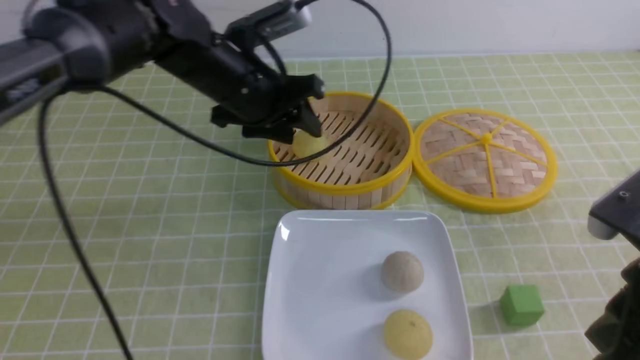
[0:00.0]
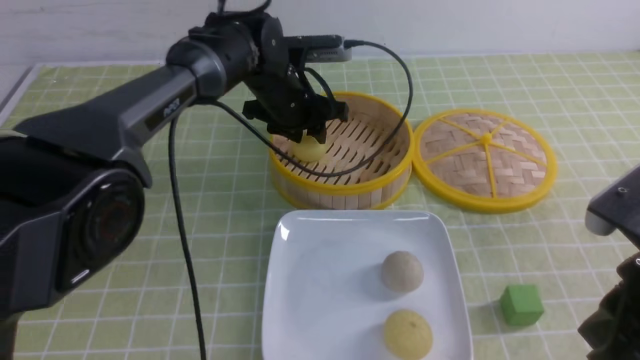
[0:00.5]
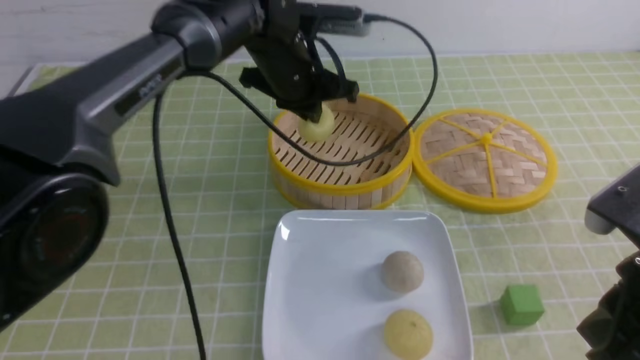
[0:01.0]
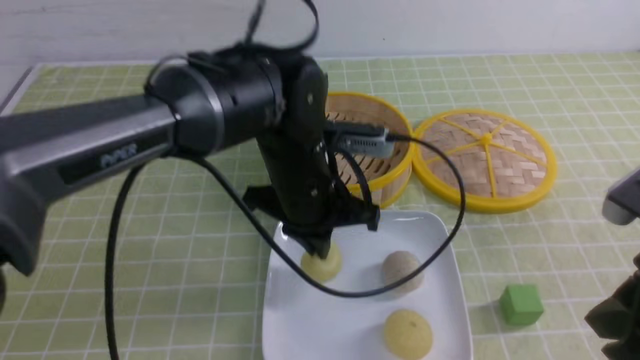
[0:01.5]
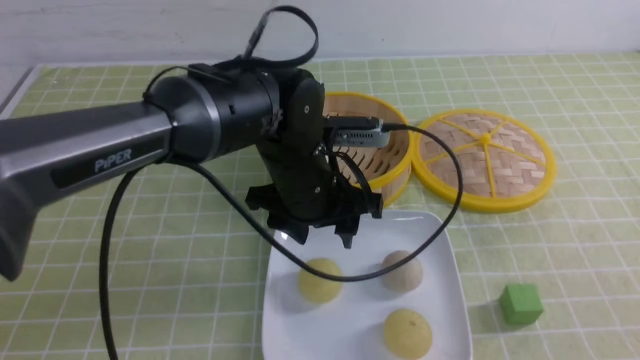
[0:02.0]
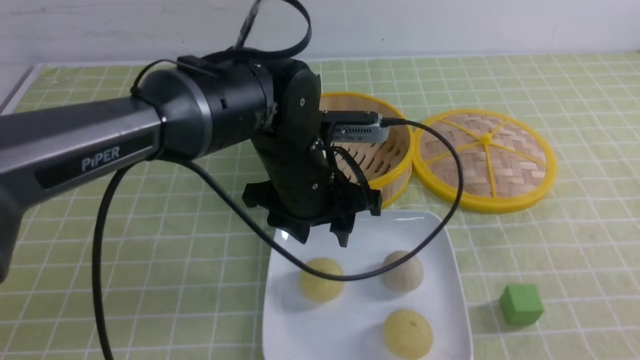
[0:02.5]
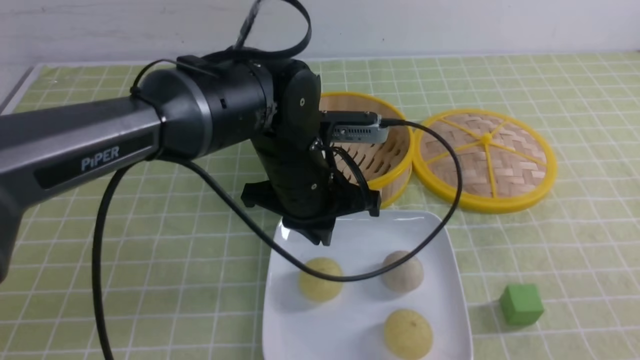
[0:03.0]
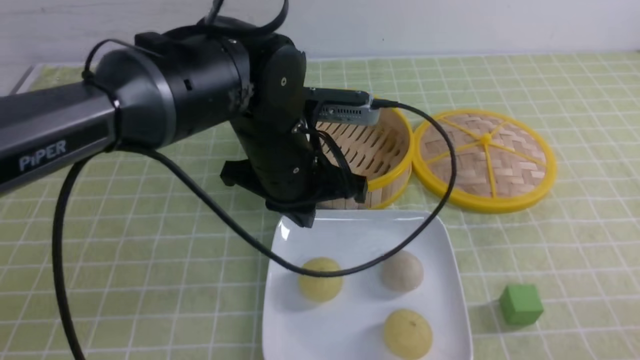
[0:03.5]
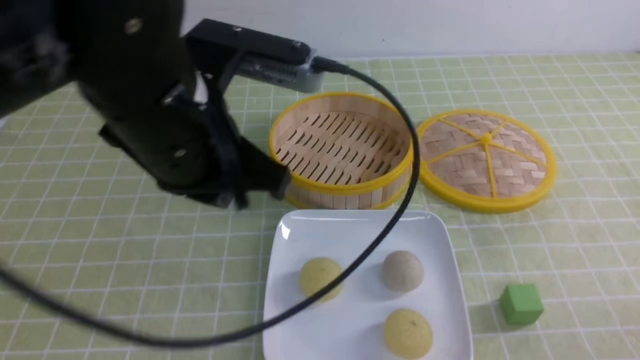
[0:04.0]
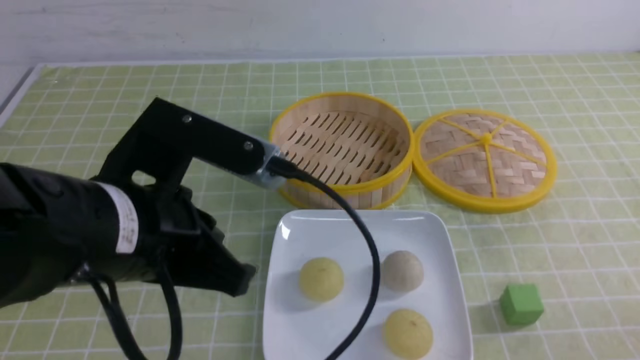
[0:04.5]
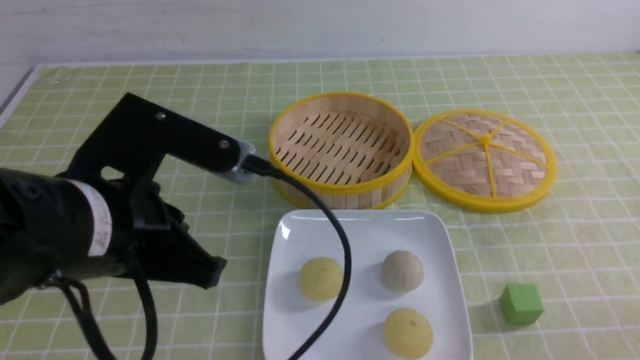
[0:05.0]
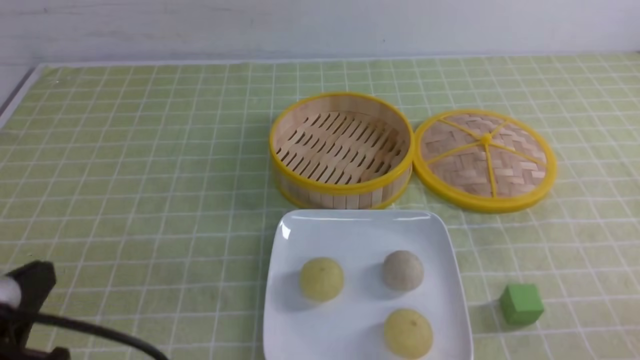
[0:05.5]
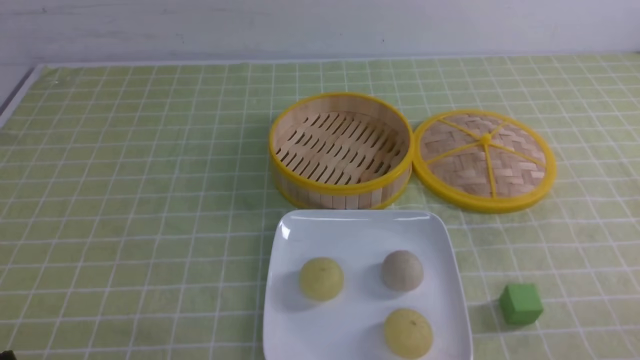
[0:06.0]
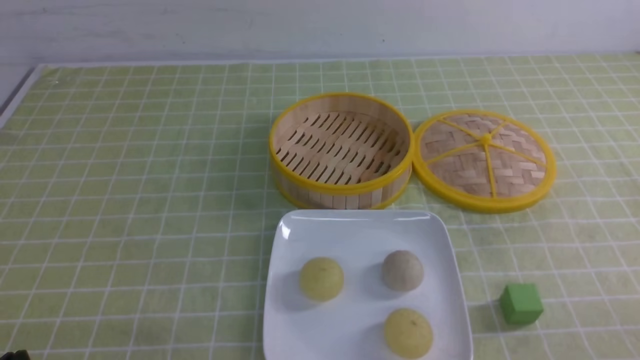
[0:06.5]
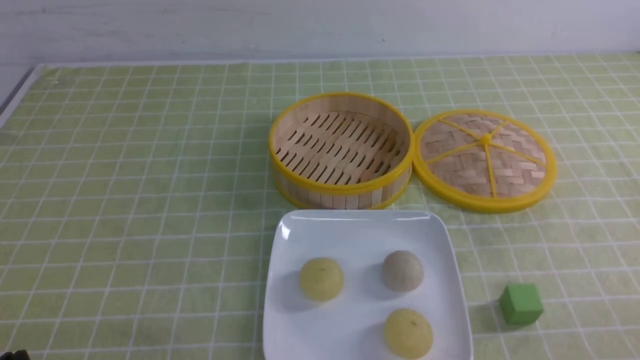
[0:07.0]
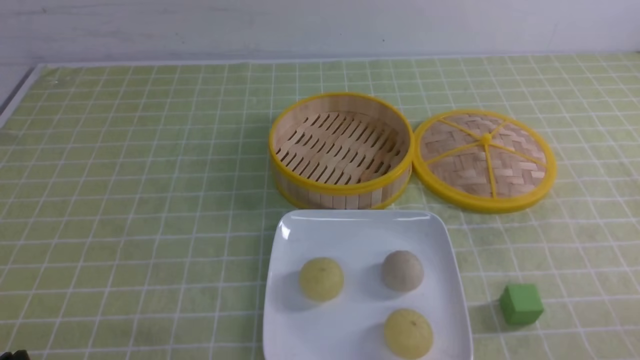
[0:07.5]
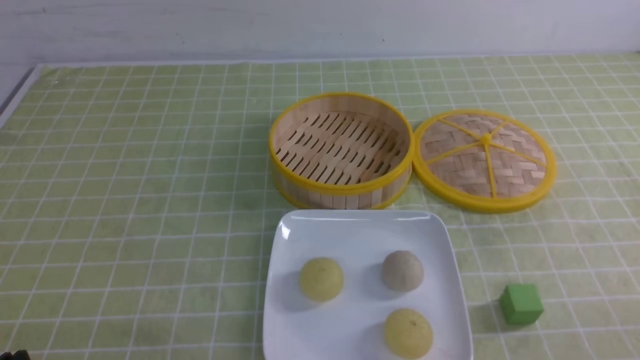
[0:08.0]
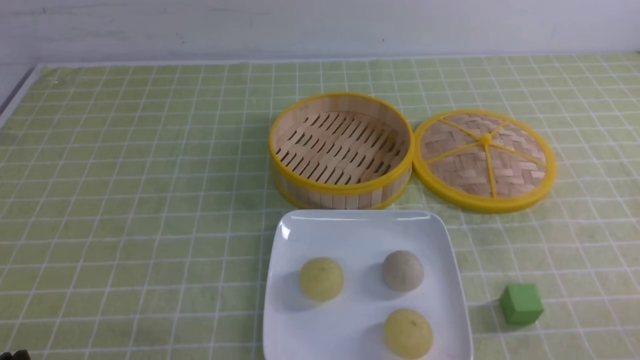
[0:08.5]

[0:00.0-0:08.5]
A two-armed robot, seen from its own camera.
Step, 0:01.0 to 0:01.5: use the left arm to put the steamed stuffed bun into the plate.
0:00.0 to 0:02.0: Both grippers travel together backward and to the right, roughly 15 cm. The left gripper closes, then opens again.
0:02.0 to 0:04.0: The right gripper shifts approximately 15 cm downward, while the left gripper travels upward, backward and to the left by roughly 15 cm, and closes its fingers.
0:04.0 to 0:06.5: The left gripper travels downward, to the left and backward by roughly 30 cm.
0:06.5 to 0:08.5: Neither gripper changes place.

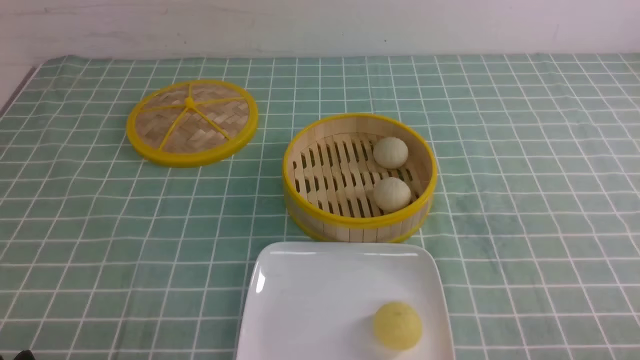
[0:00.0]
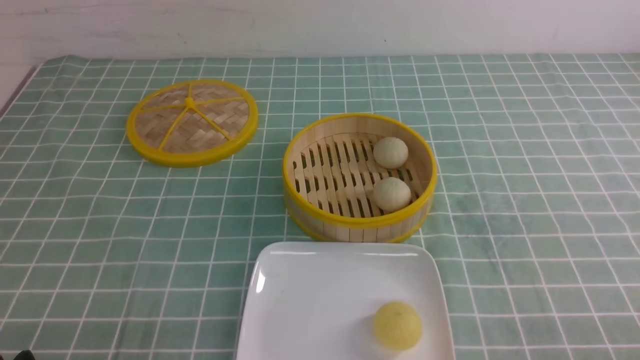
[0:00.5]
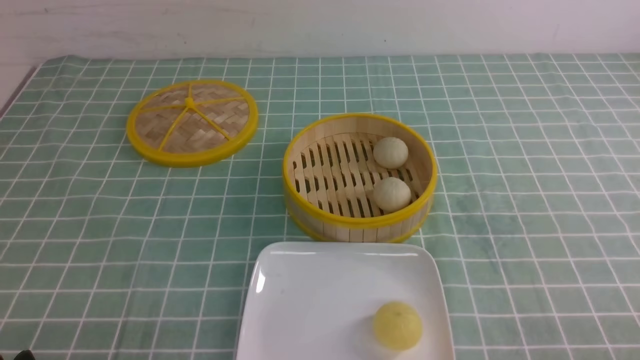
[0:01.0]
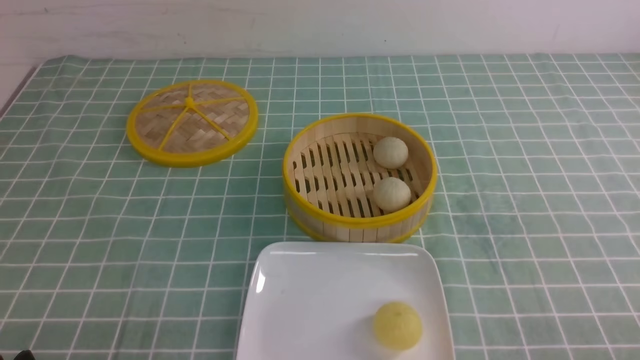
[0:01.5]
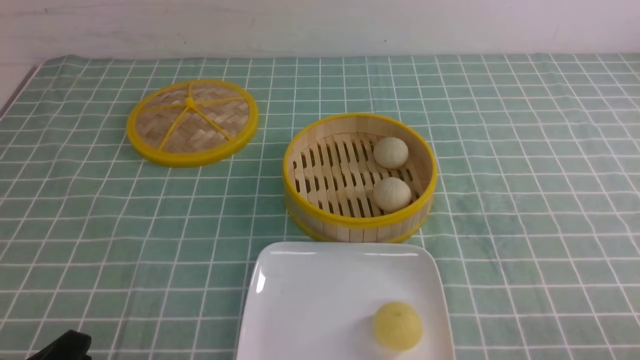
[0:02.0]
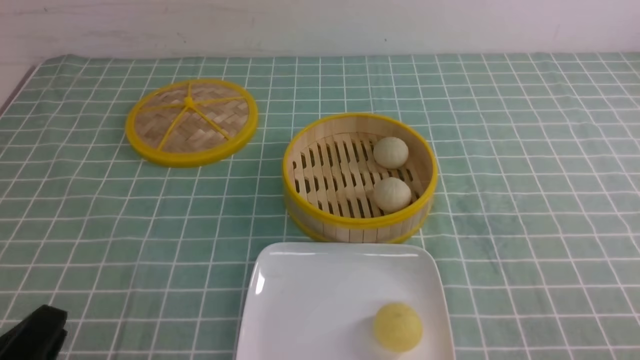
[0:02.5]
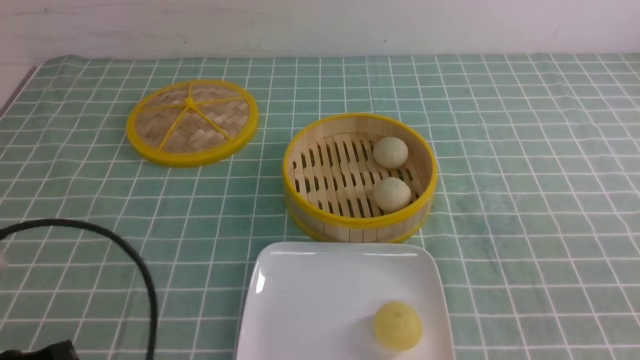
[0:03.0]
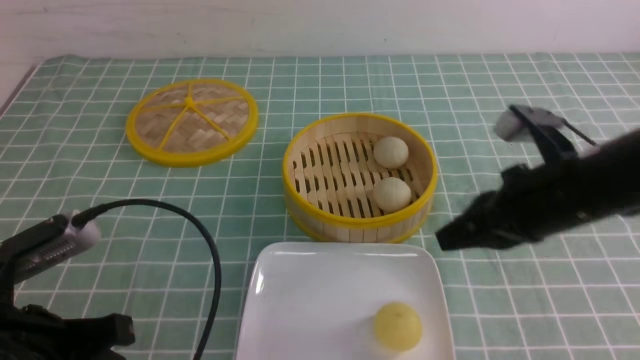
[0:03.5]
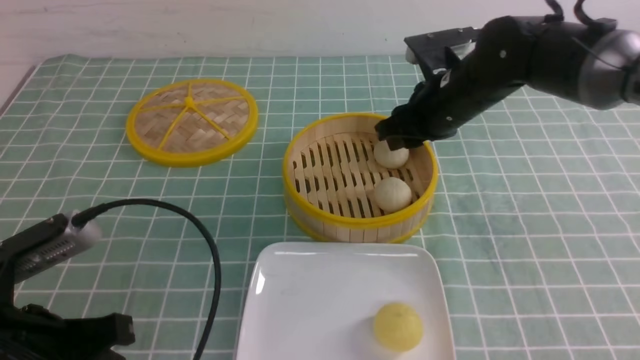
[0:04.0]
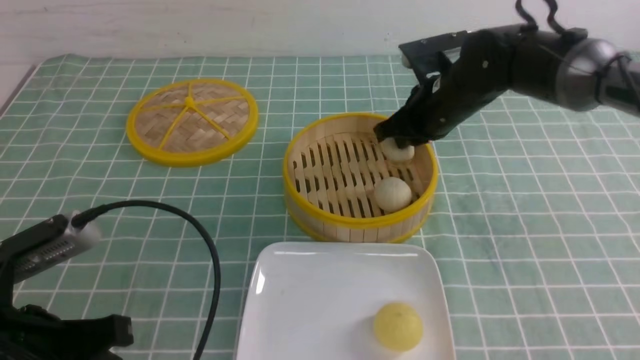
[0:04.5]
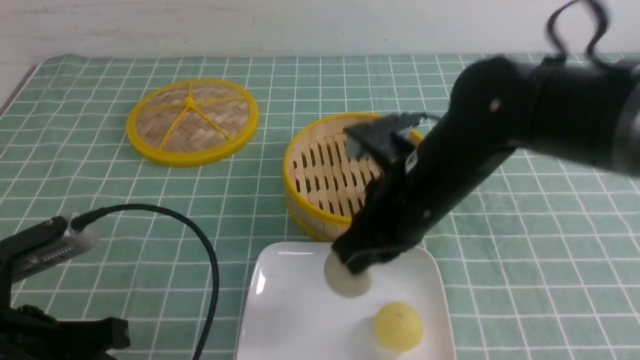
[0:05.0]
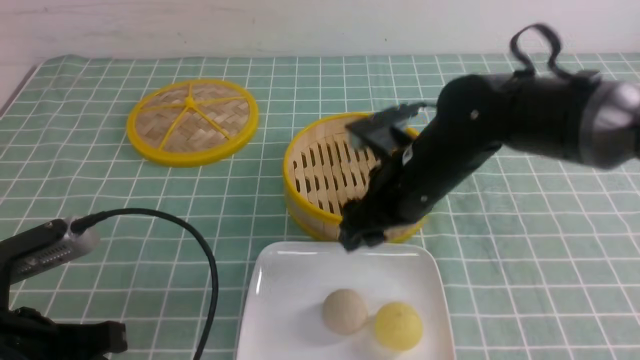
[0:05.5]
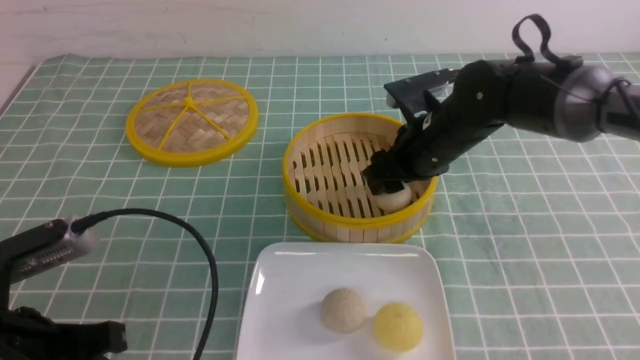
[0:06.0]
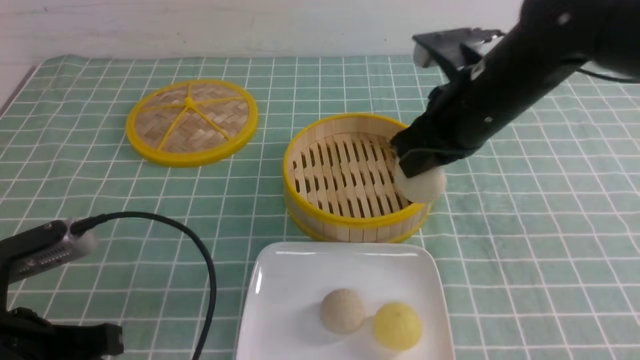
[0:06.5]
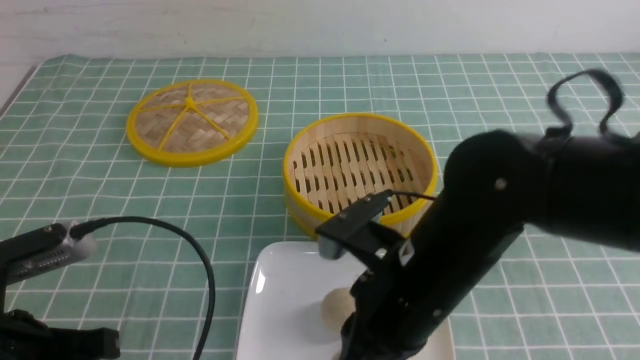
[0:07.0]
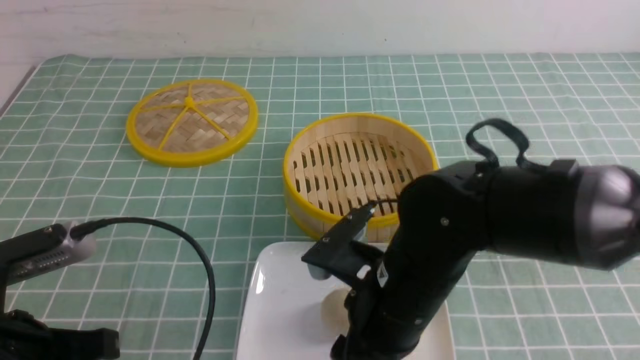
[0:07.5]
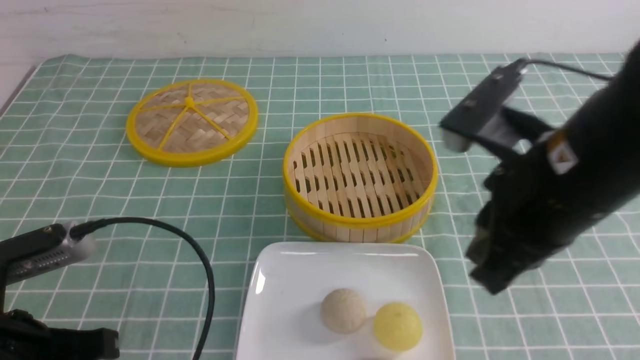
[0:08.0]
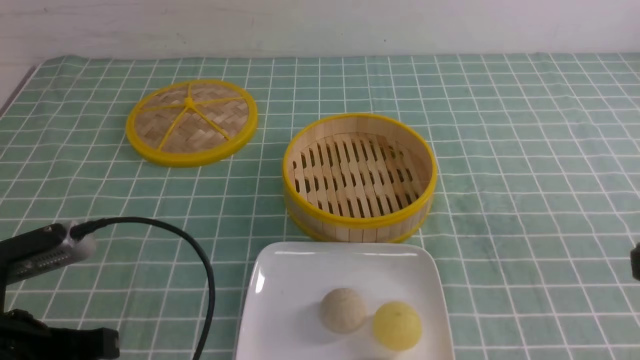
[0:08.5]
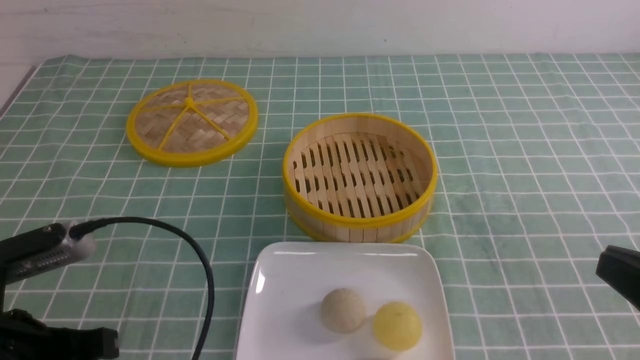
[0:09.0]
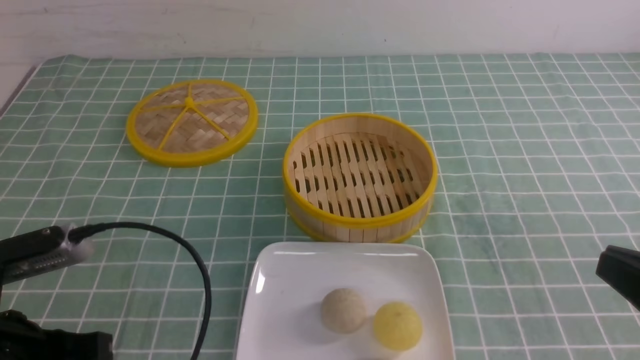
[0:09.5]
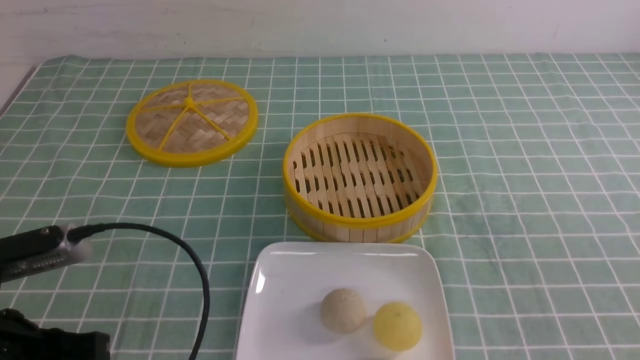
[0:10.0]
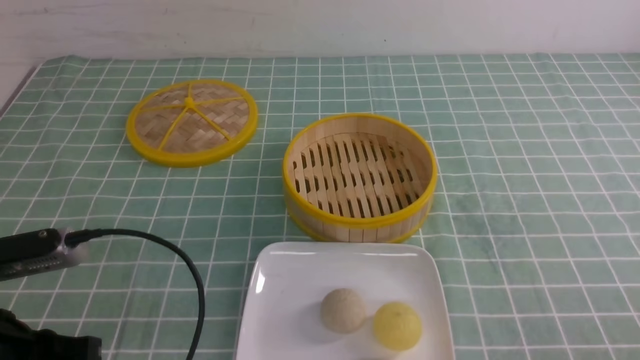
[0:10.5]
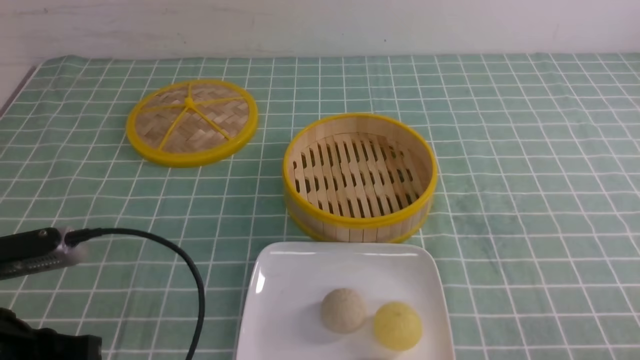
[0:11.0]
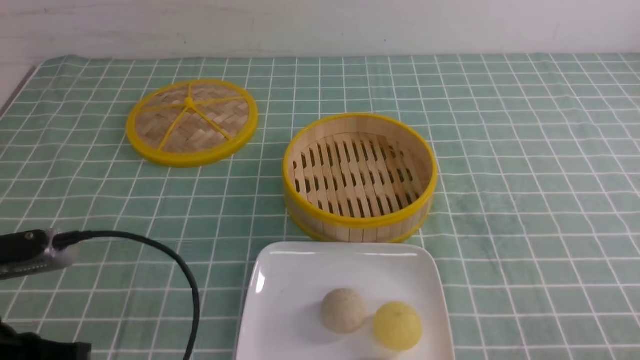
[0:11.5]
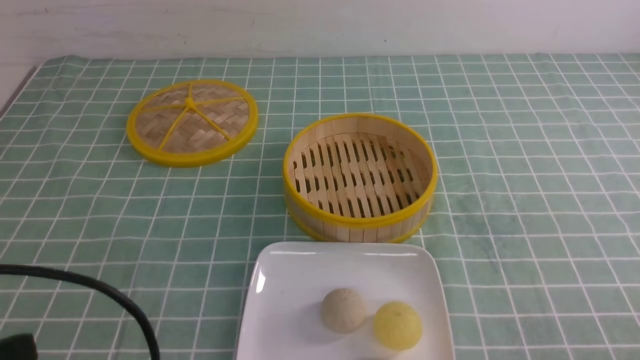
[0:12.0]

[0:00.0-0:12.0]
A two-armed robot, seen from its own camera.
Step, 0:00.0 to 0:04.0: use the right arm to grab the steamed stuffed bun that is closest to it.
Step, 0:04.5 to 0:05.0: use the right arm to put the steamed stuffed bun into the plate.
Step, 0:05.5 to 0:06.0: use the right arm to grab the steamed stuffed bun that is closest to it.
Step, 0:06.5 to 0:07.5: use the right arm to put the steamed stuffed bun into the plate.
0:02.0 to 0:04.0: The left gripper heads forward and upward, covering some 10 cm, and closes. The right gripper moves forward and to the left, about 40 cm, and closes, then opens again.
0:04.0 to 0:06.0: The right gripper goes backward and returns, roughly 15 cm each way, and closes and opens again.
0:06.0 to 0:08.0: The right gripper travels backward and upward by about 25 cm, and closes its fingers.
0:08.0 to 0:10.0: The right gripper is displaced to the right, backward and downward by approximately 20 cm.
0:10.0 to 0:12.0: The left gripper heads backward, covering approximately 5 cm, and closes its fingers.
